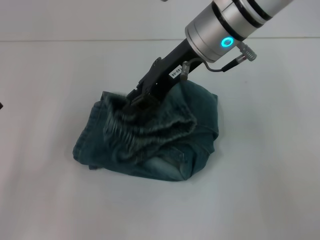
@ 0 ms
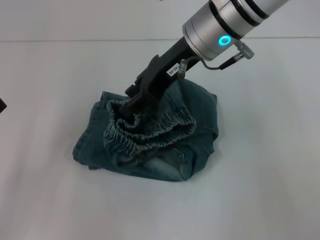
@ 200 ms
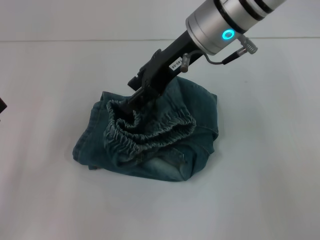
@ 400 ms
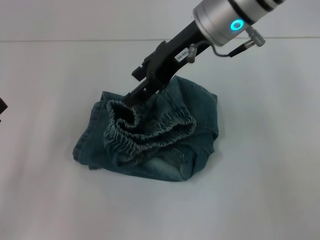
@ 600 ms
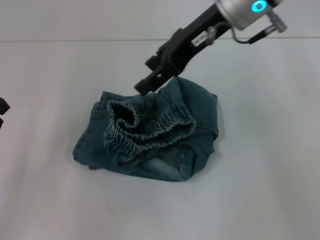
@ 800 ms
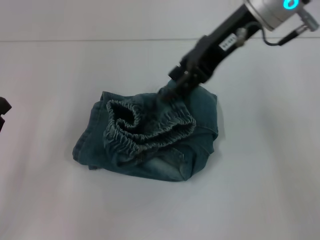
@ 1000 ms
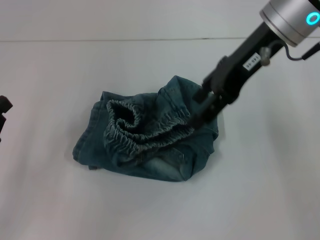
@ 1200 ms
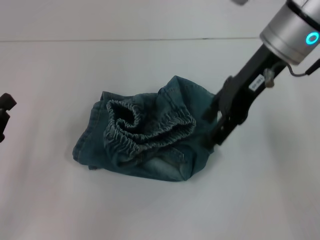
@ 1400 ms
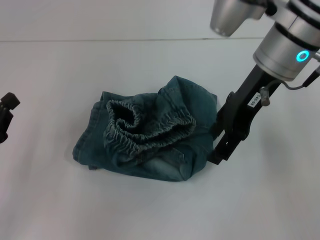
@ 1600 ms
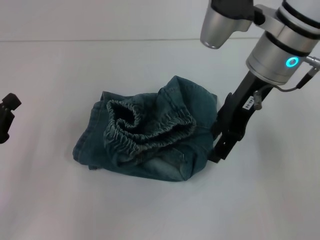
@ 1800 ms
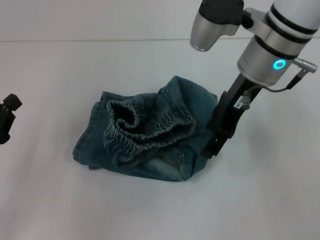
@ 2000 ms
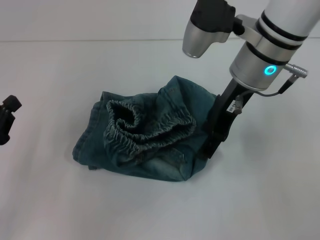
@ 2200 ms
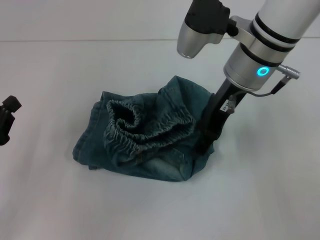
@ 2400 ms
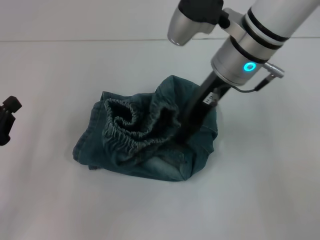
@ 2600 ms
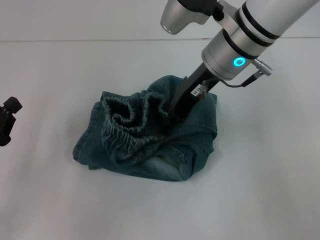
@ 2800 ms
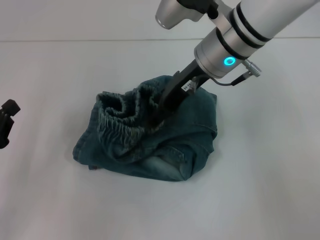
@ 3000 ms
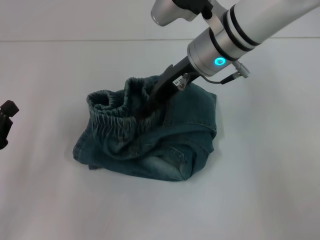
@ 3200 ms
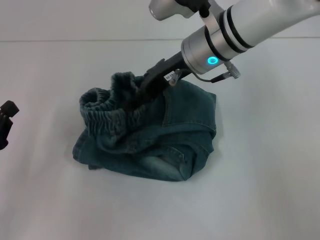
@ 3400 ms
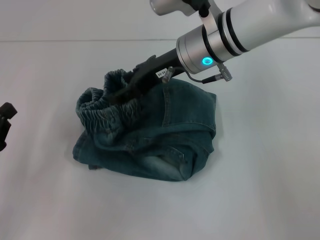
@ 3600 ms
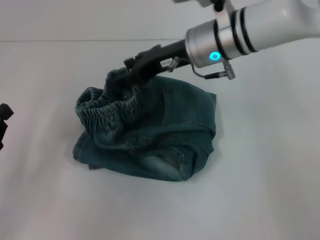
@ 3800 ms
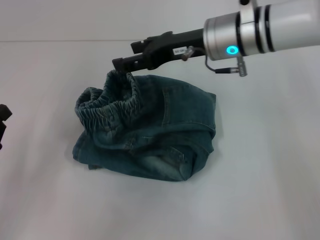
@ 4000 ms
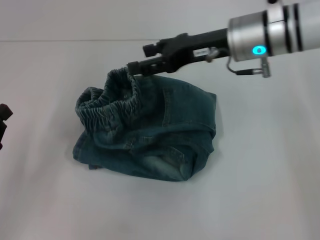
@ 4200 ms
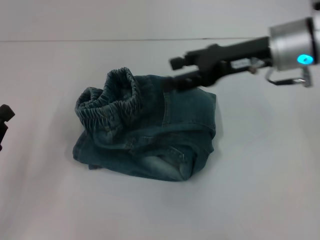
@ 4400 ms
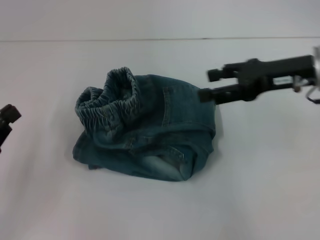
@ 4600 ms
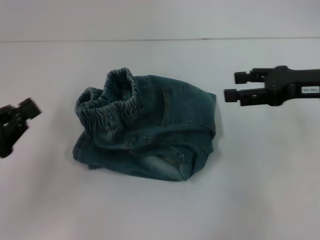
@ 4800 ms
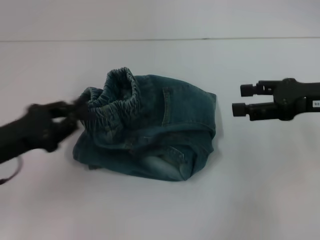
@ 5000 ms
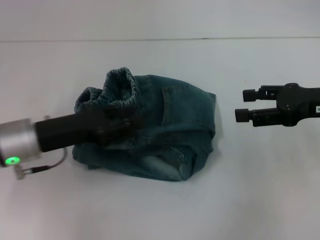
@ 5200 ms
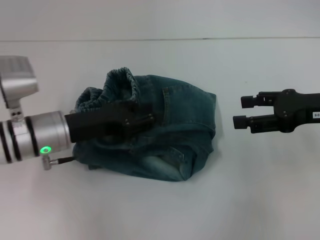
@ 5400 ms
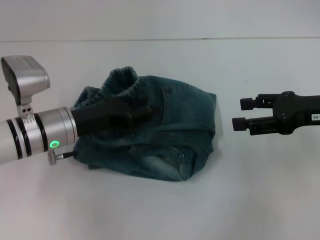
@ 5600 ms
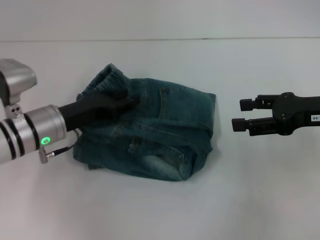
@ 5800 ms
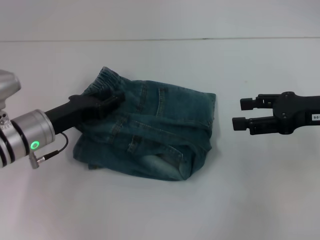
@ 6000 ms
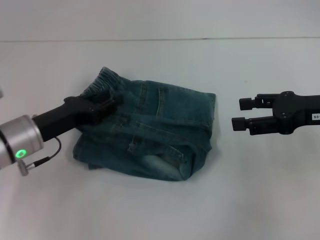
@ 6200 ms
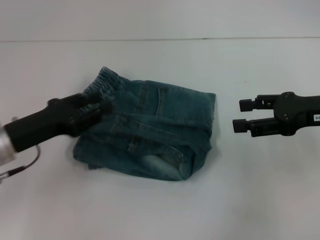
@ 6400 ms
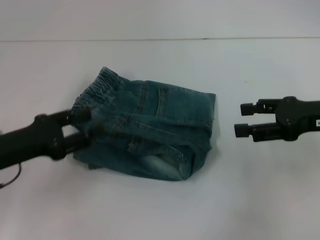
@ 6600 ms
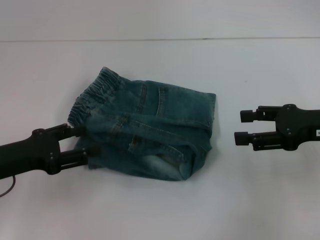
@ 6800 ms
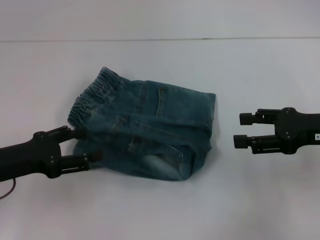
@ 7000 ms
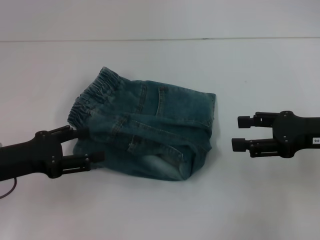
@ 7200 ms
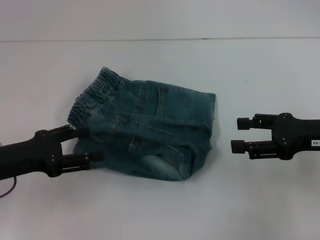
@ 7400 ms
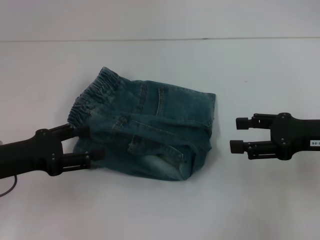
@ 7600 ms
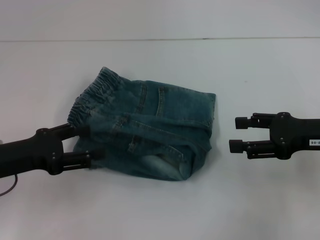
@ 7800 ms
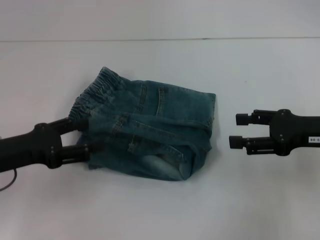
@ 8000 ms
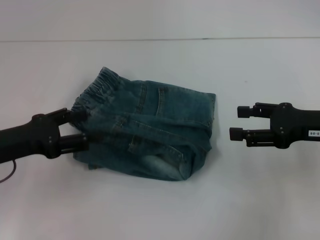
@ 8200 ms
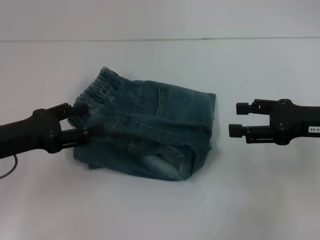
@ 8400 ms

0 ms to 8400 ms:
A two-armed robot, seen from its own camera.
Step, 1000 ms to 4200 ms: Adjust the pants with your right hand.
Step, 4400 ms to 6600 ms: Adjust the pants with your left hand.
0 ms to 1400 ms: The right gripper is displaced to the right by roughly 5 cm, and opens.
1400 ms to 2800 ms: The right gripper heads to the left, covering some 5 cm.
2800 ms to 4200 ms: The right gripper changes place by about 5 cm.
4200 ms to 5600 ms: The left gripper heads to the right and forward, covering approximately 20 cm, and opens its fingers. Meanwhile the right gripper heads to the right and backward, covering some 15 cm.
5600 ms to 7000 ms: The left gripper is displaced to the left and backward by approximately 15 cm, and opens its fingers.
7000 ms to 8400 ms: The grippers move only a little.
